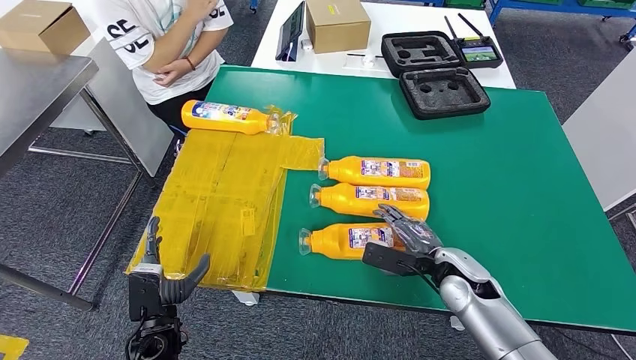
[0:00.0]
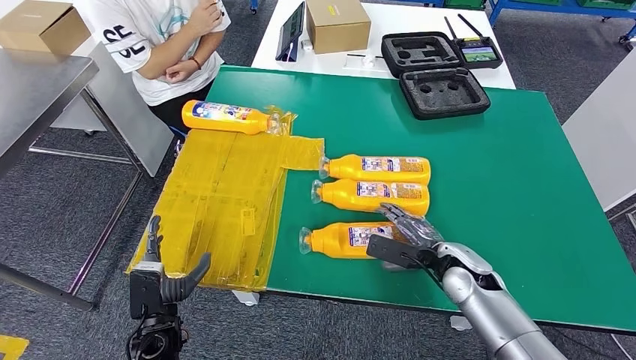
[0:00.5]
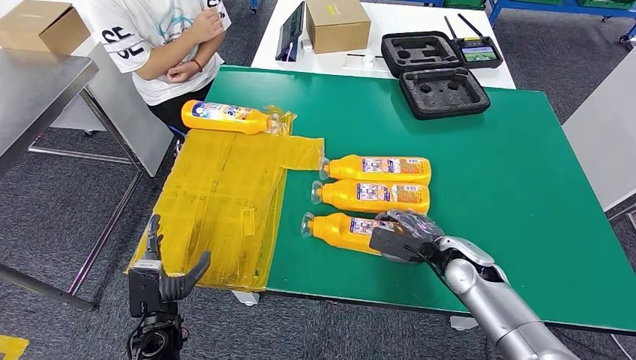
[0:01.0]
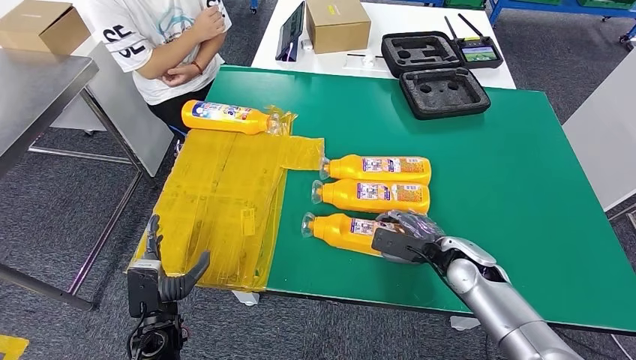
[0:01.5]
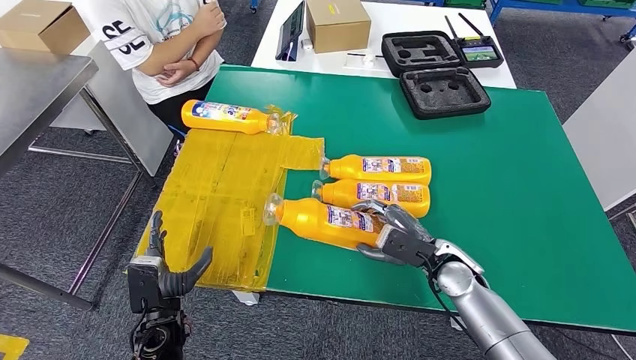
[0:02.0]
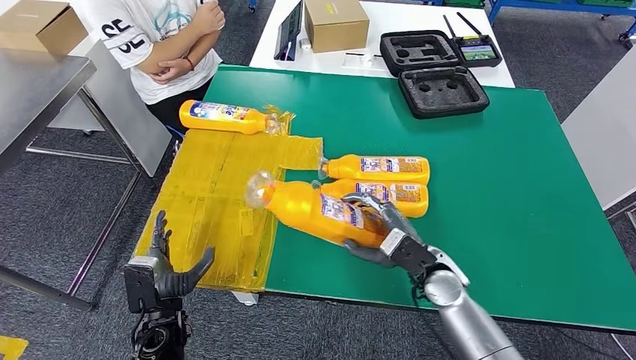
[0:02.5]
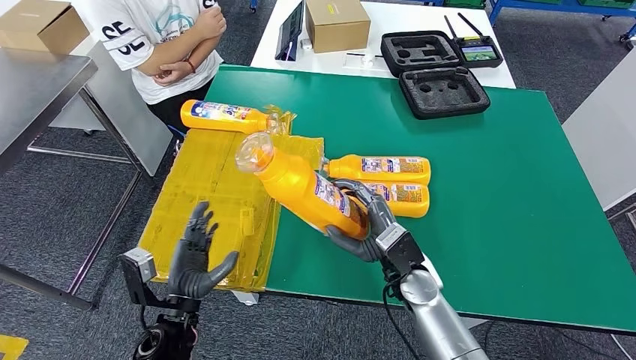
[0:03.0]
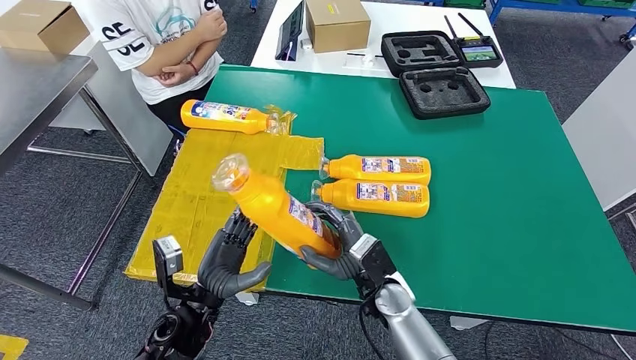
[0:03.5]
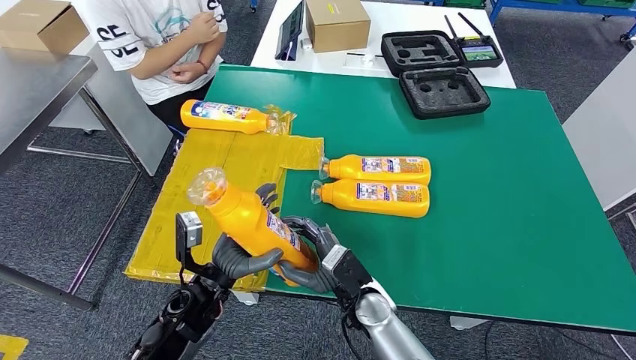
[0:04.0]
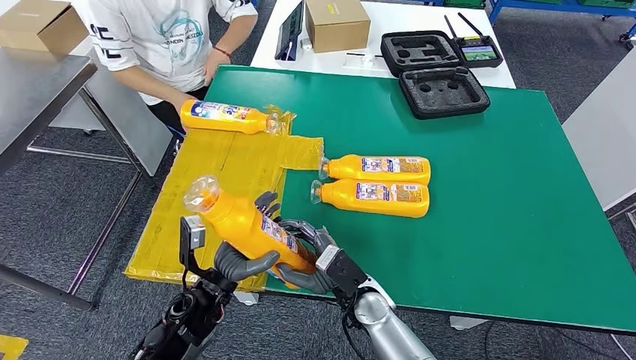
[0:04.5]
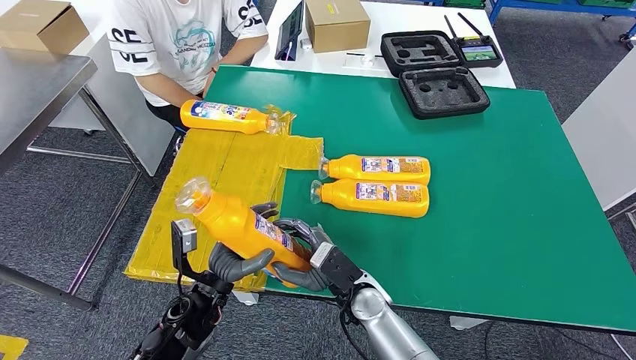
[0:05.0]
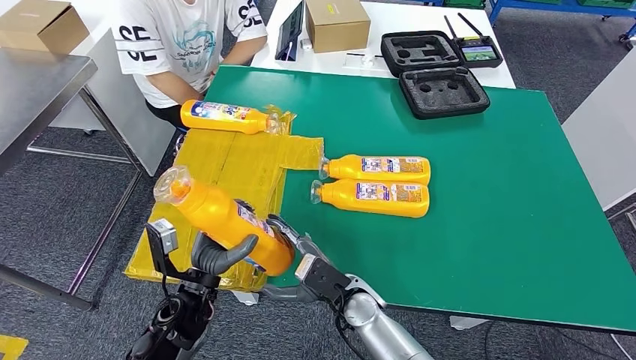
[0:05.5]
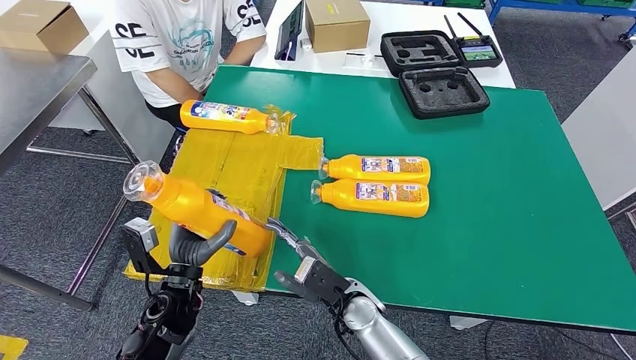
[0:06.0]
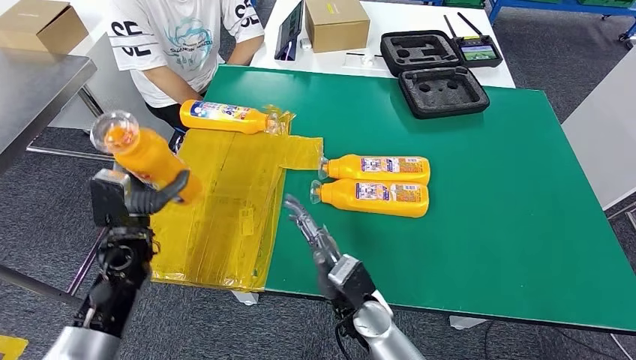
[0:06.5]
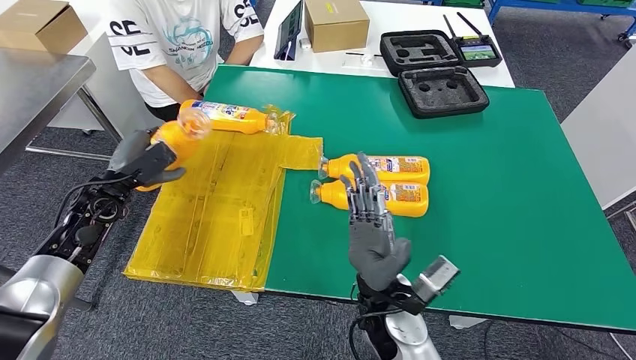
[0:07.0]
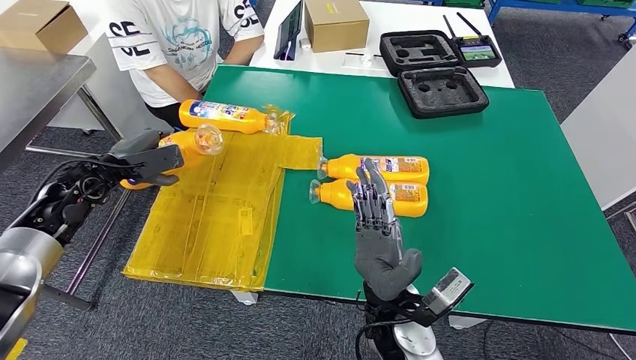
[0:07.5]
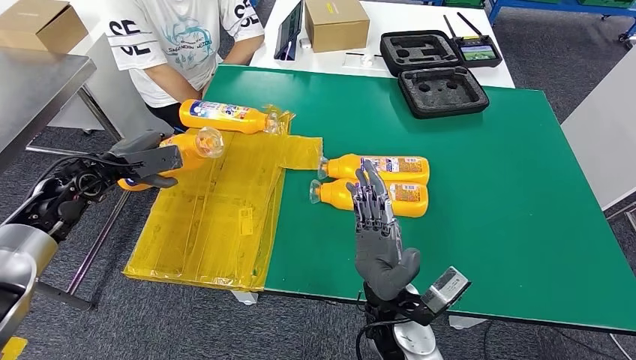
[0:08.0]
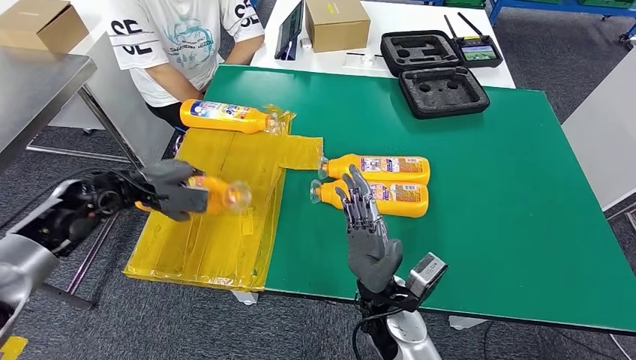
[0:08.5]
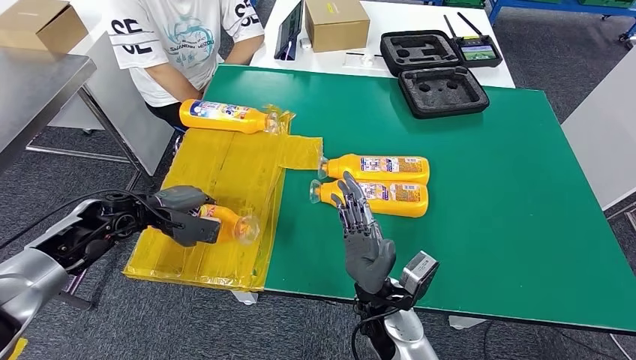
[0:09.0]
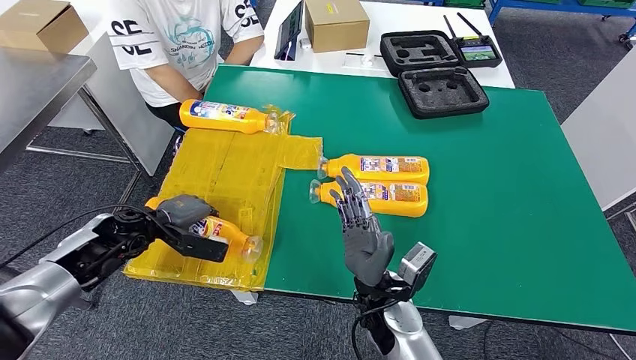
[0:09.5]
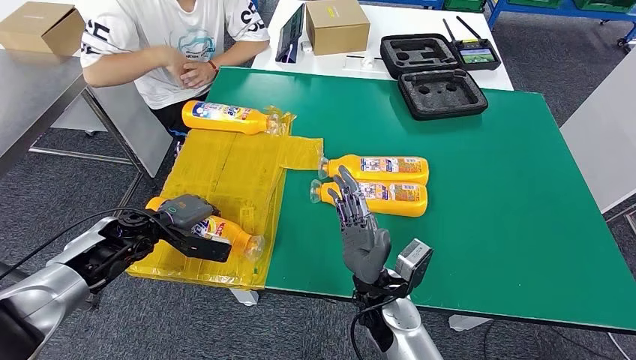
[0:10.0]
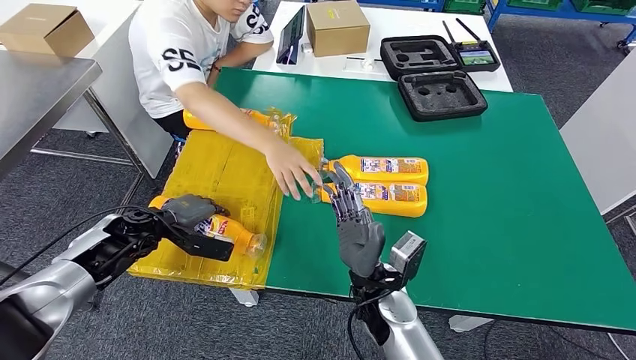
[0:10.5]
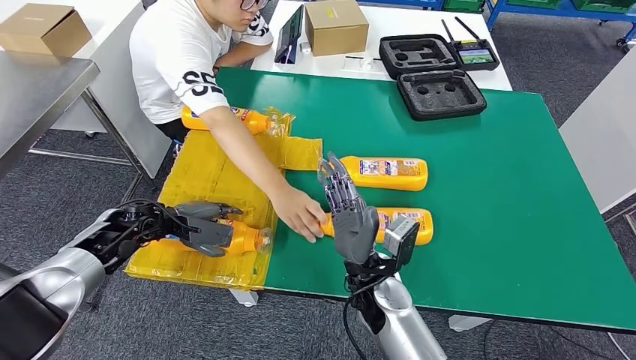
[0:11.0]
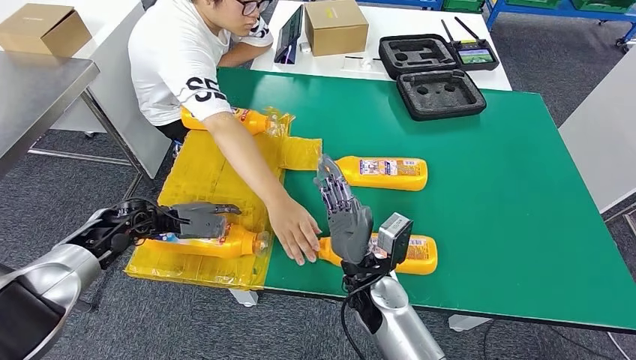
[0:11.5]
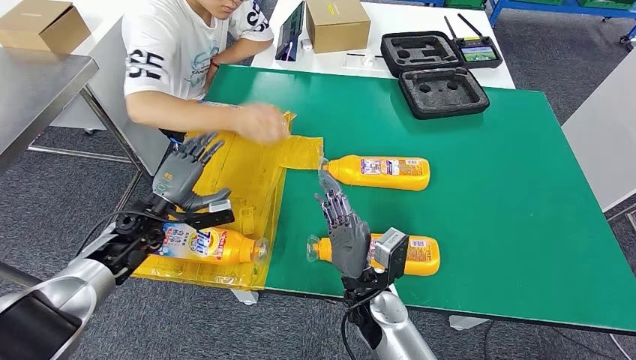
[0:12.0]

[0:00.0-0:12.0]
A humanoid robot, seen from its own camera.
Step, 0:00.0 to 0:02.5: Pick up the bottle from the table.
Step, 0:03.5 to 0:10.0: Flip the bottle to face forward.
0:02.0 to 0:04.0: The right hand shifts approximately 15 cm to the left, while the left hand is displaced to the right, upward and forward by approximately 10 cm.
0:06.0 to 0:08.0: The right hand goes some 10 cm upward. The left hand heads to the left, forward and upward, covering about 30 cm.

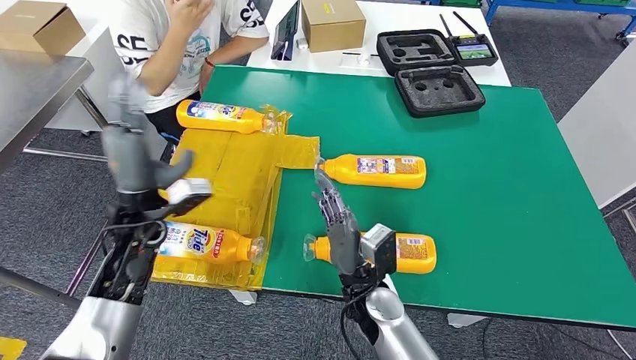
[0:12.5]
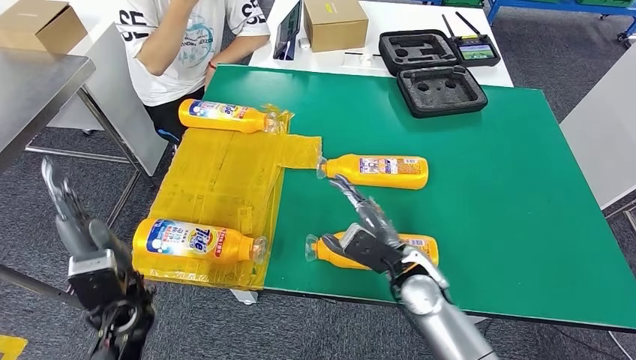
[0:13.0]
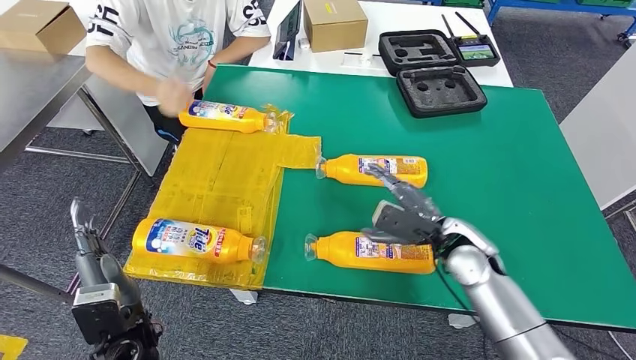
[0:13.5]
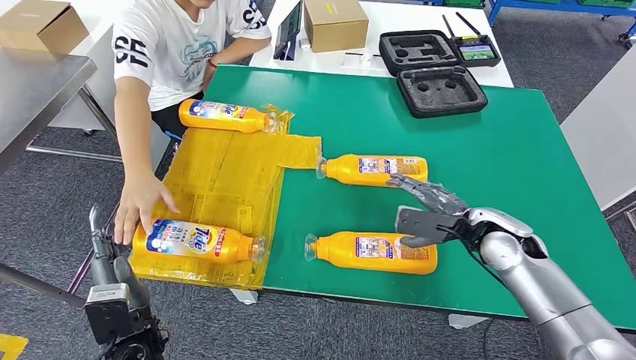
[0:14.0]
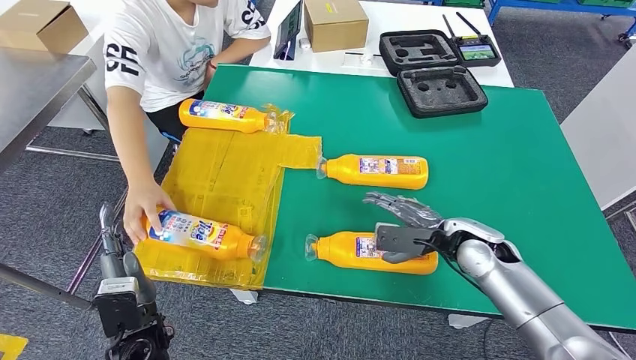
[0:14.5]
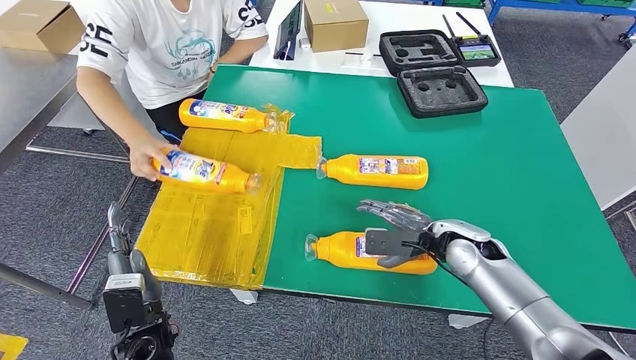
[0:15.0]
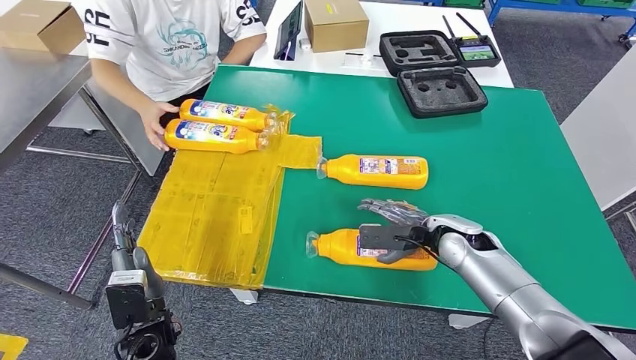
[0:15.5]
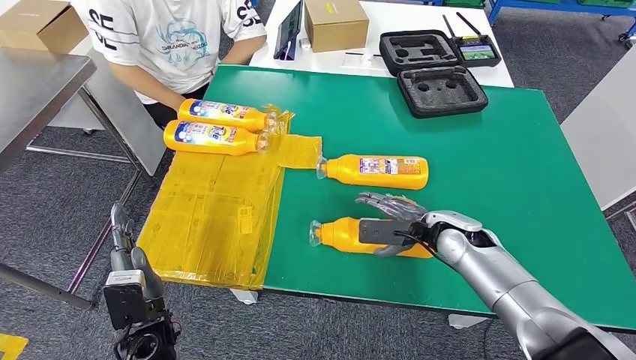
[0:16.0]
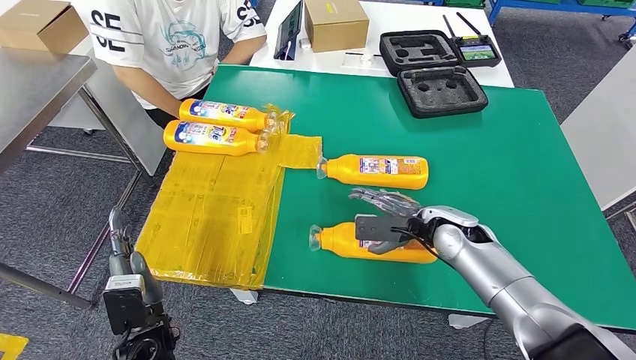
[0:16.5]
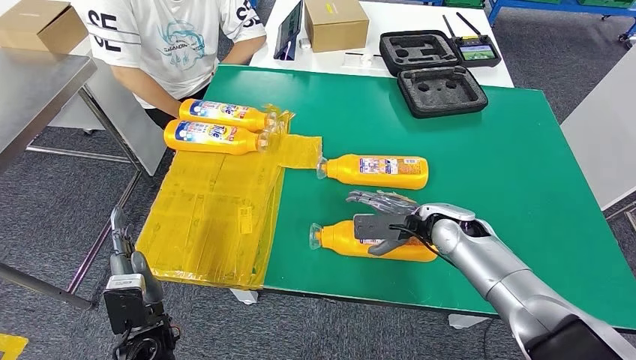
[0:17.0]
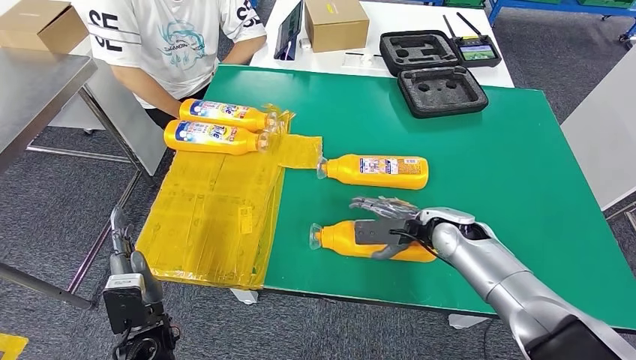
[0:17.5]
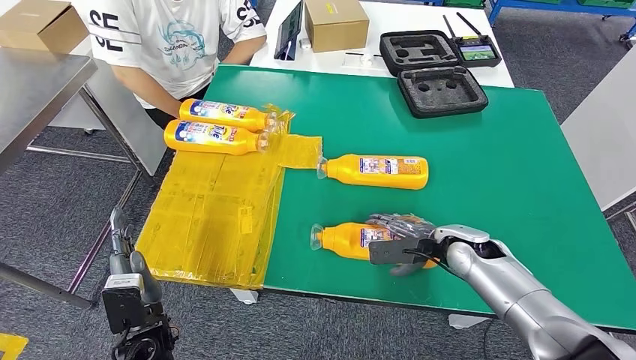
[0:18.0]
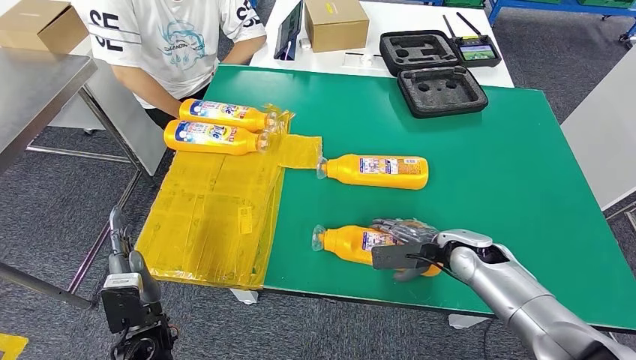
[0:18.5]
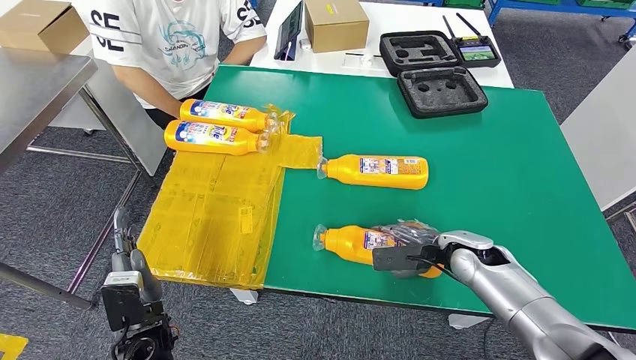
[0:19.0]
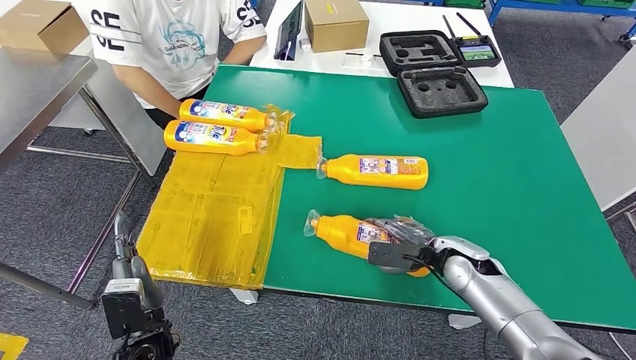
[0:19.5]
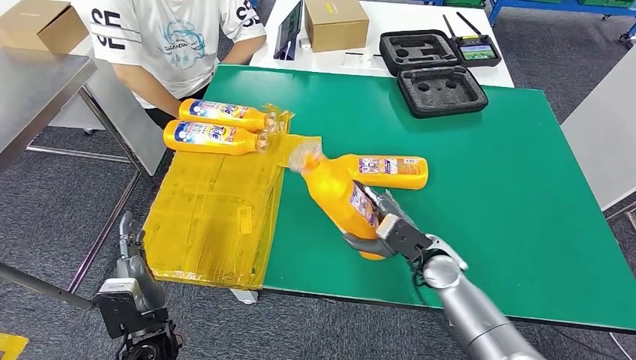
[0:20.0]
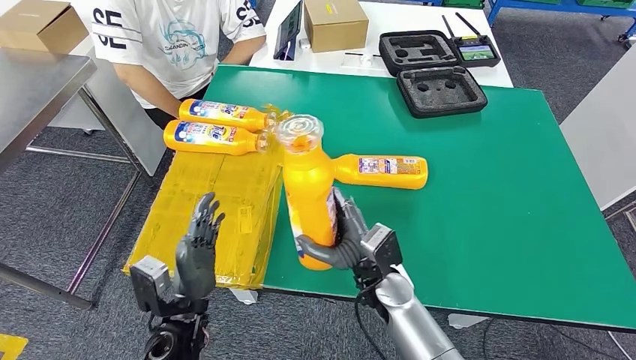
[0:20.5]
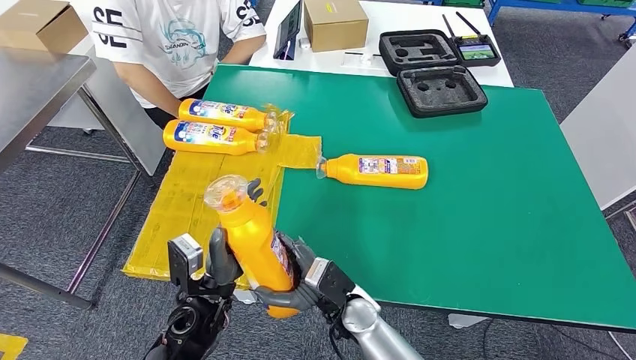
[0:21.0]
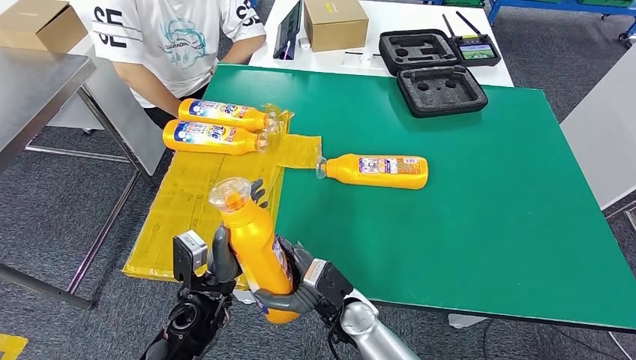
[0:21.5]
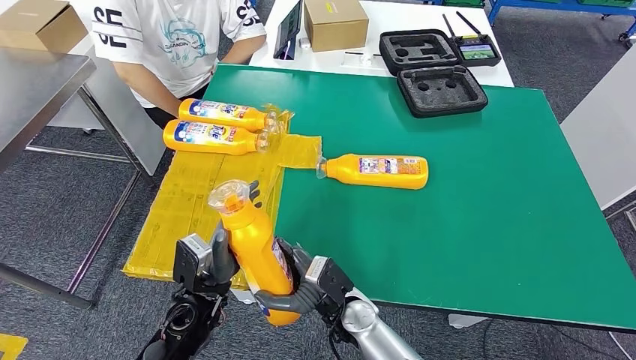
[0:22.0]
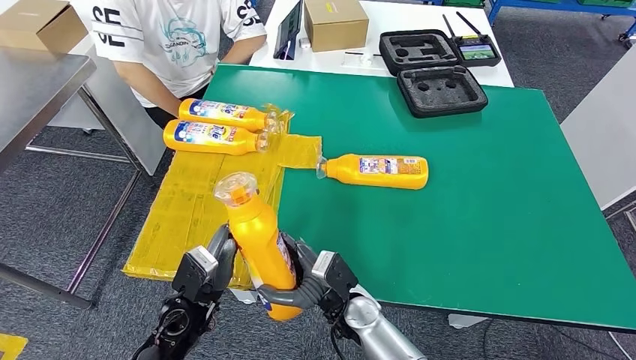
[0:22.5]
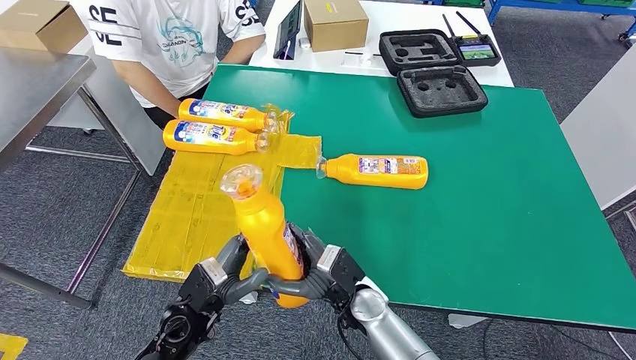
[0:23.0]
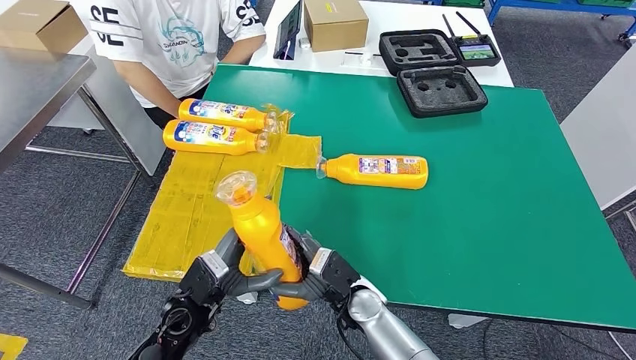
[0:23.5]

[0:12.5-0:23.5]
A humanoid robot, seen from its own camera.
Step, 0:12.5 to 0:19.5: Pick up the bottle from the table.
0:14.5 to 0:18.0: The hands make only small movements.
0:18.0 to 0:20.0: The right hand travels to the left by roughly 10 cm.
0:20.0 to 0:21.5: The right hand travels to the left and backward by roughly 15 cm. The left hand heads to the right and forward, covering some 10 cm.
0:21.5 to 0:23.5: There are only small adjustments of the hands.
